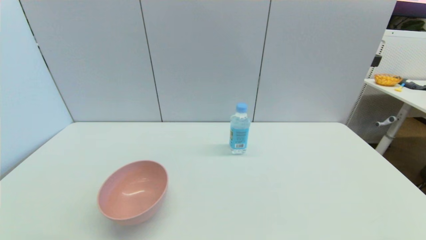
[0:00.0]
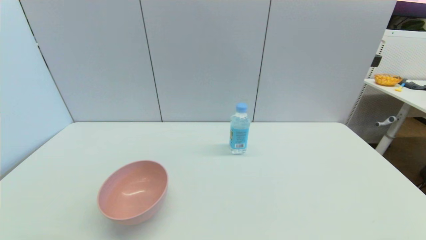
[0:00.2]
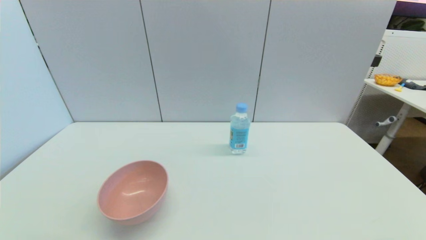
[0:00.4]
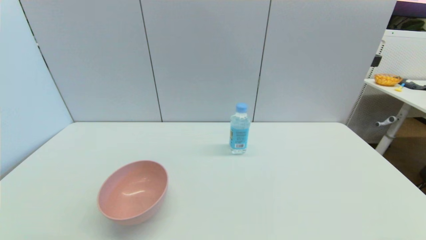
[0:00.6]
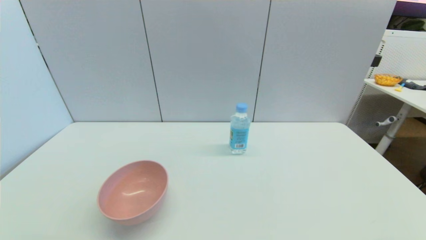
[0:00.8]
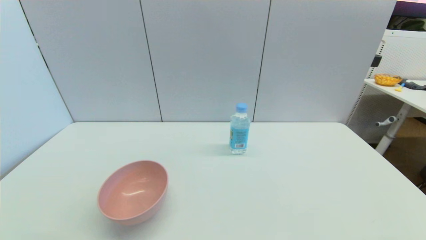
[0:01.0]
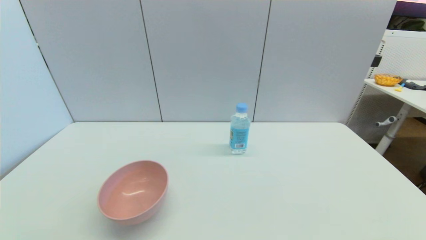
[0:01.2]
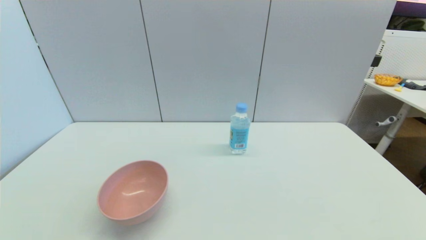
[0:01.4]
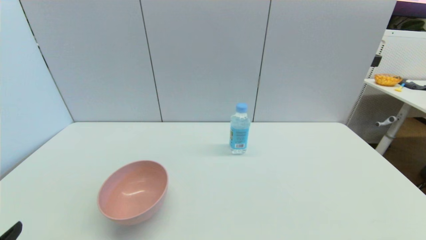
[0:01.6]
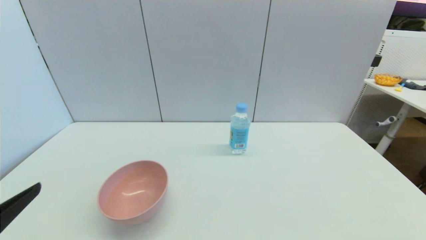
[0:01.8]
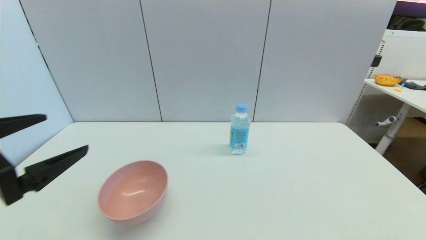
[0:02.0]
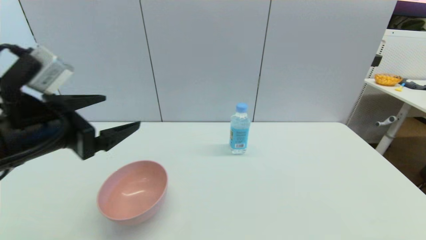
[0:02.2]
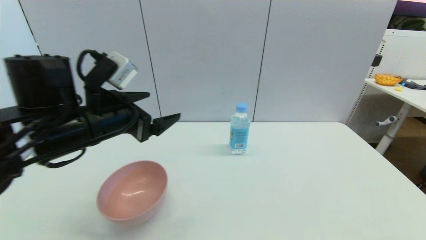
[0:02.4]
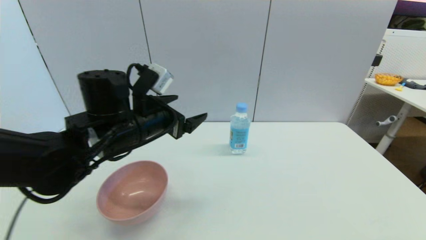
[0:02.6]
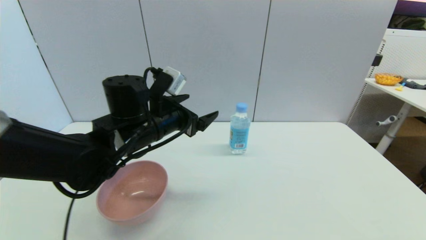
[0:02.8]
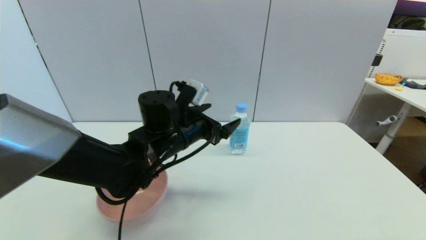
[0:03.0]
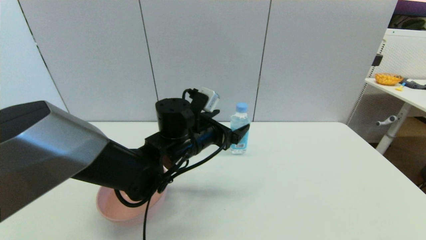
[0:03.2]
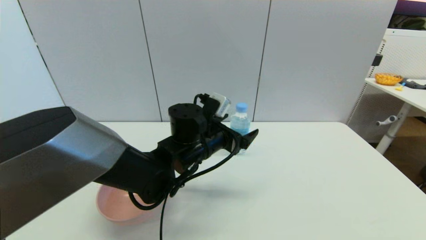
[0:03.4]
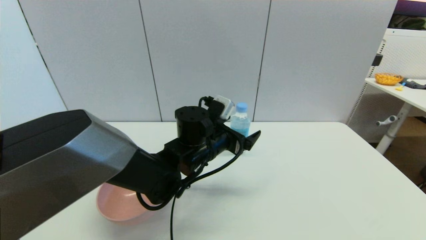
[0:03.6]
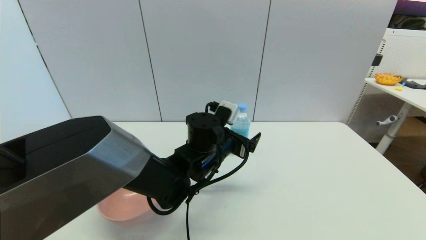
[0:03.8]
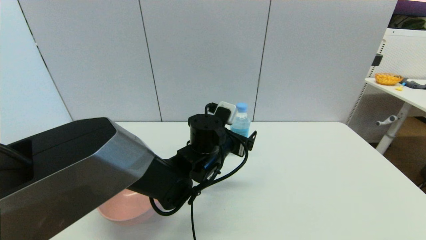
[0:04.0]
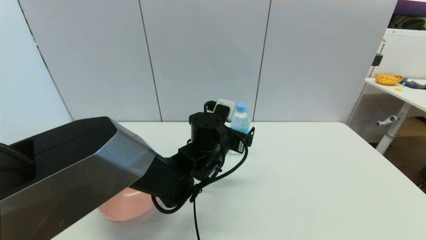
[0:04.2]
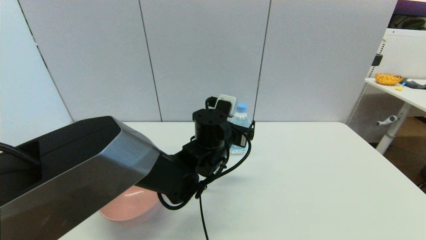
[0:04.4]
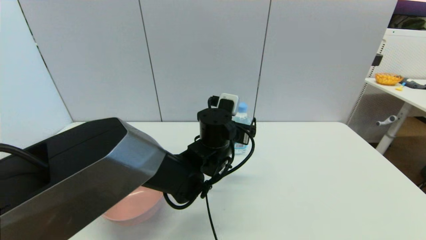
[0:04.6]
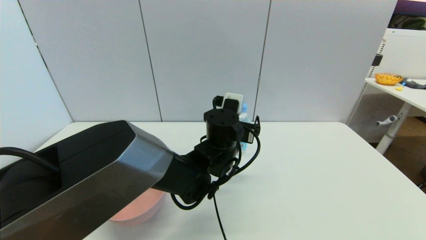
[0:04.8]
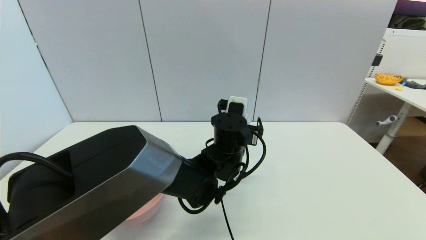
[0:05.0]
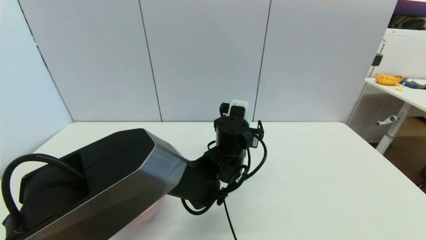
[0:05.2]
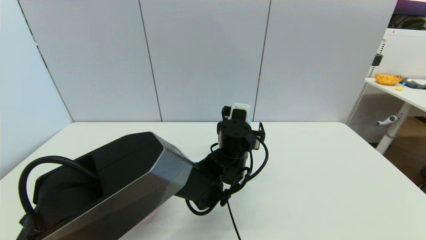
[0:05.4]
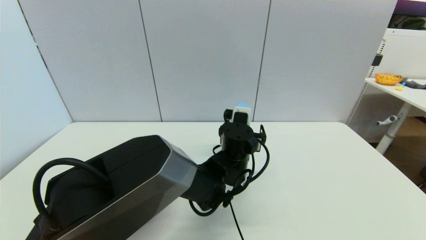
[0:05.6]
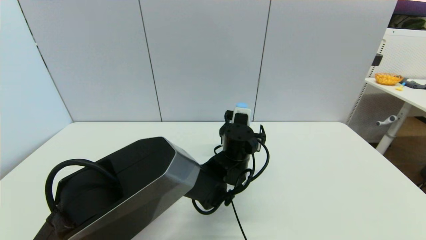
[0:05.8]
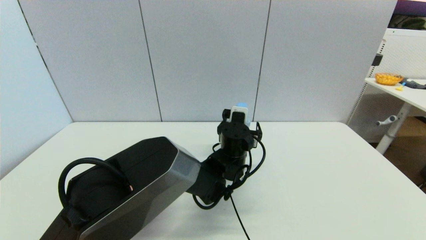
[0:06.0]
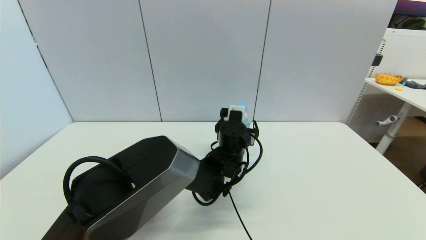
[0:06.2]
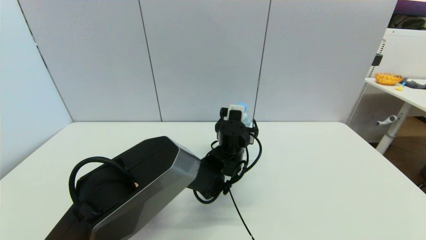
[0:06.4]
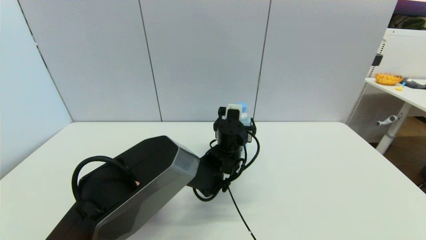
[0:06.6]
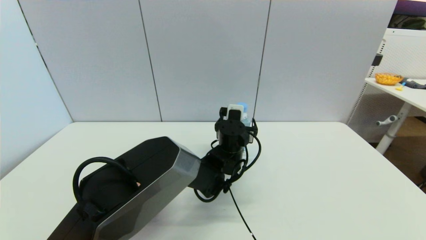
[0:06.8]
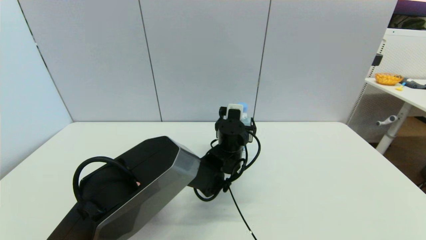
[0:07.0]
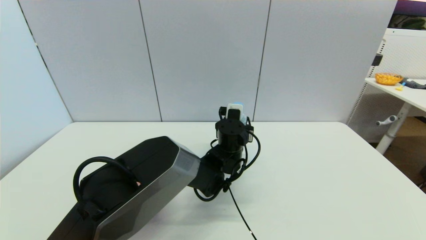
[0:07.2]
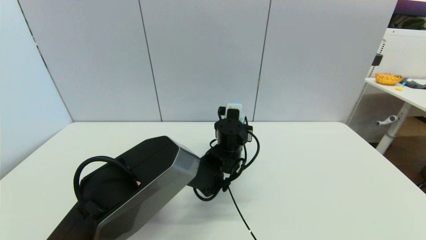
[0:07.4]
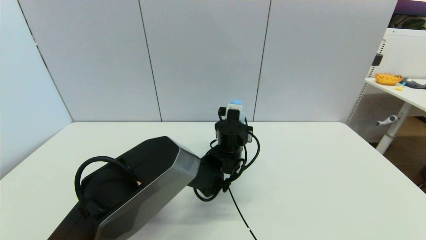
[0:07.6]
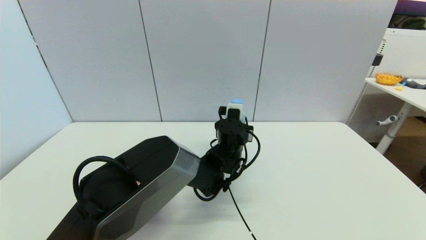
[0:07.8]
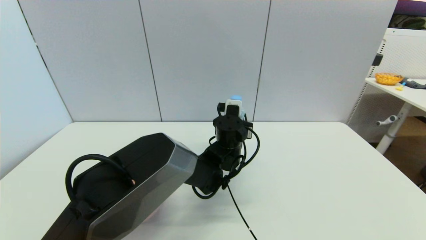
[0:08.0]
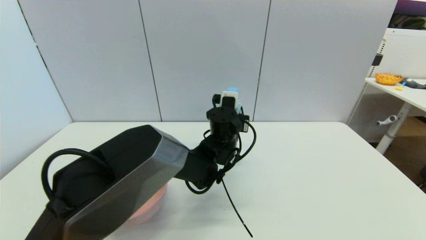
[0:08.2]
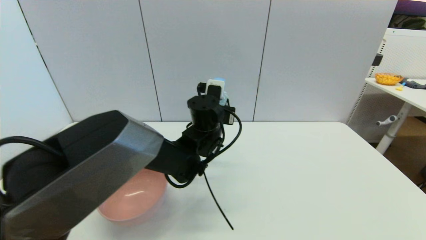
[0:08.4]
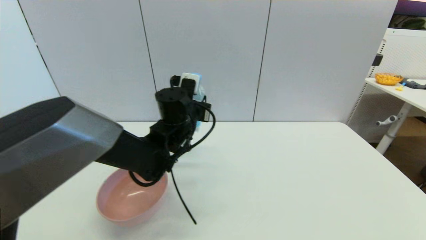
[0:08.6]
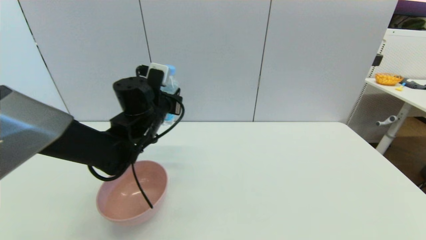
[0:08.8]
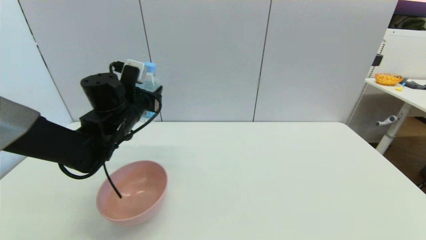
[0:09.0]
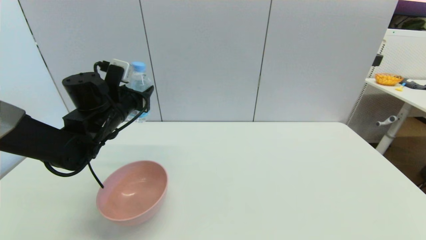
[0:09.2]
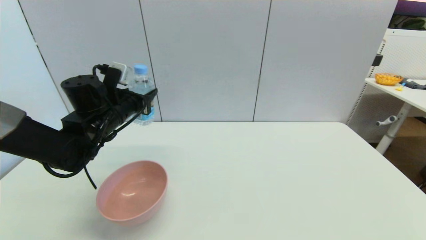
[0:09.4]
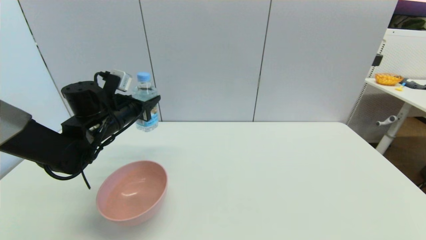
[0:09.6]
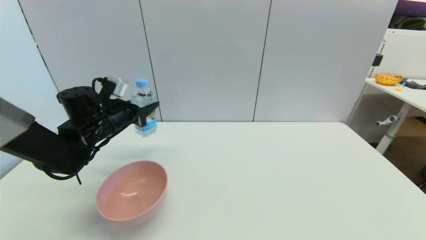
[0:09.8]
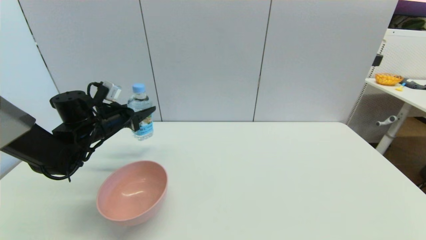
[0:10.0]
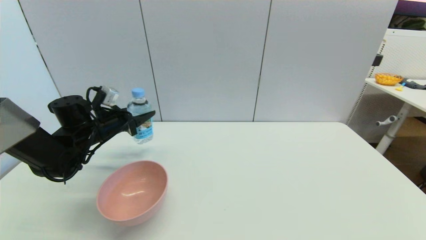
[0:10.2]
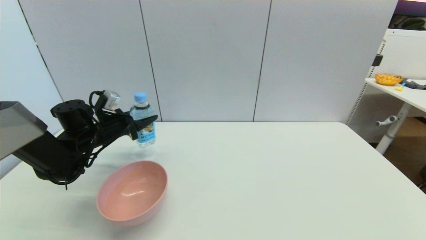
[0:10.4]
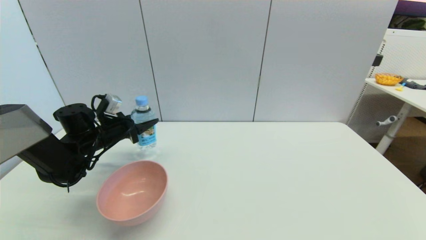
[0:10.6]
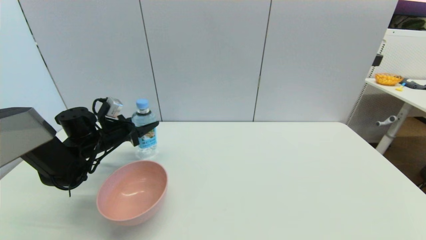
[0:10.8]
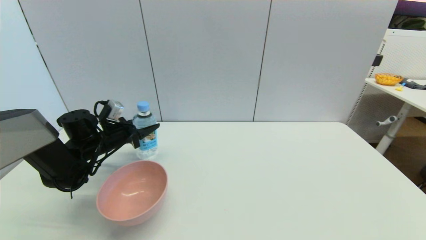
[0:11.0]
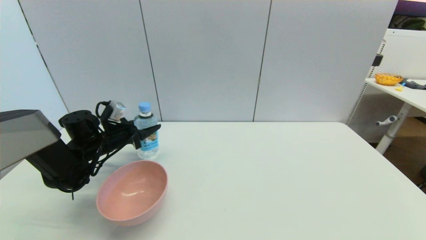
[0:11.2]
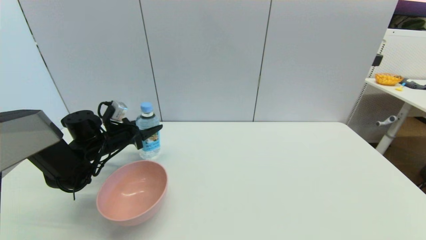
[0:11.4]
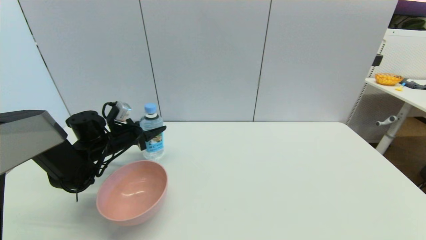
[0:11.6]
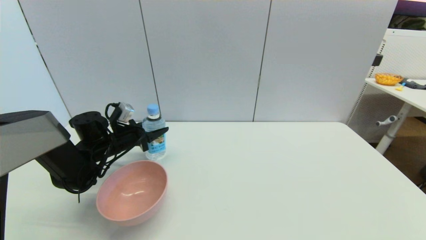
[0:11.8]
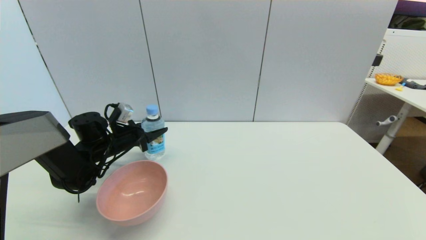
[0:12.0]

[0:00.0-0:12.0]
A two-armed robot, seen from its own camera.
Step, 0:01.4 to 0:07.6: Grasp the soda water with left gripper.
0:01.6 to 0:03.0: The left gripper shifts some 40 cm forward and to the right.
0:03.0 to 0:04.4: The left gripper travels to the right by approximately 10 cm.
0:04.4 to 0:06.0: The left gripper goes about 5 cm to the right.
0:06.0 to 0:07.6: The left gripper closes up.
0:07.6 to 0:09.0: The left gripper goes approximately 25 cm to the left and upward.
0:09.0 to 0:10.4: The left gripper heads to the left and downward, covering about 10 cm.
0:10.4 to 0:12.0: The grippers stay close to where they were, moving slightly.

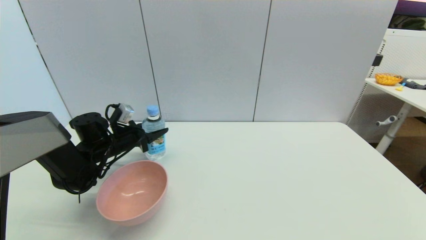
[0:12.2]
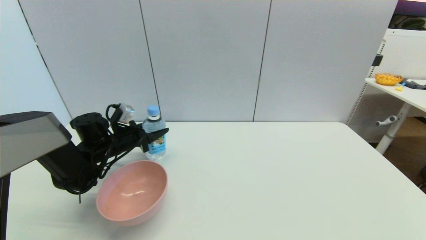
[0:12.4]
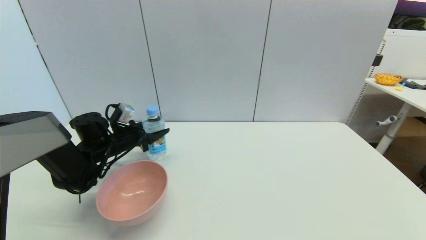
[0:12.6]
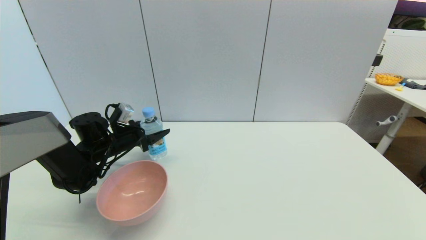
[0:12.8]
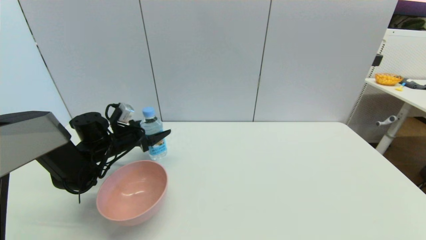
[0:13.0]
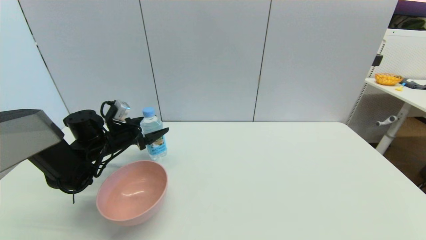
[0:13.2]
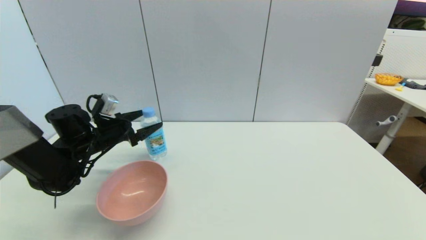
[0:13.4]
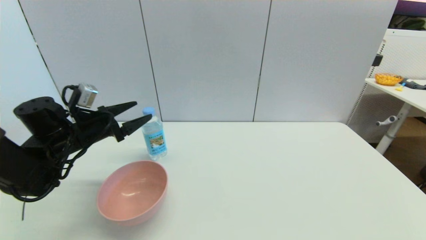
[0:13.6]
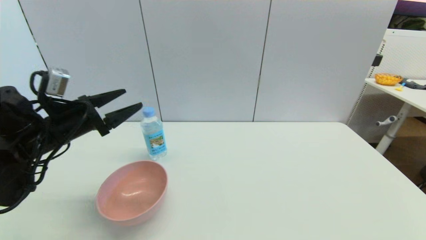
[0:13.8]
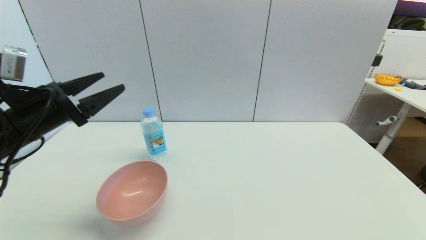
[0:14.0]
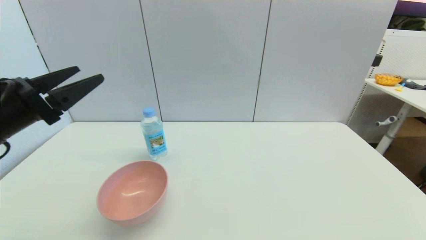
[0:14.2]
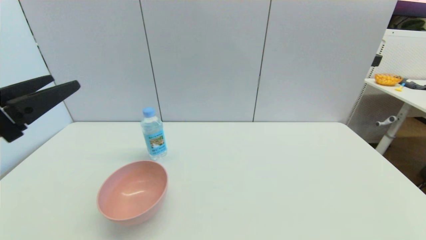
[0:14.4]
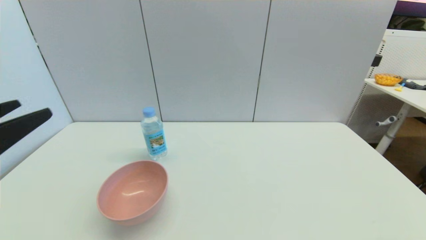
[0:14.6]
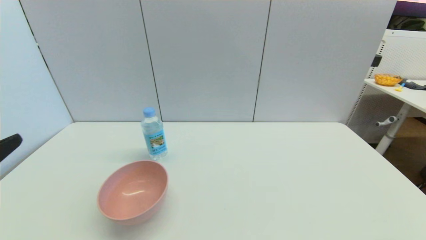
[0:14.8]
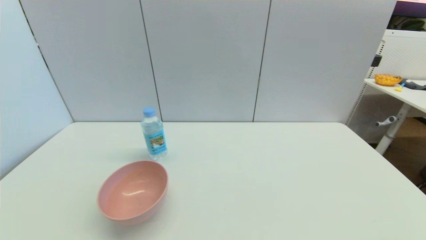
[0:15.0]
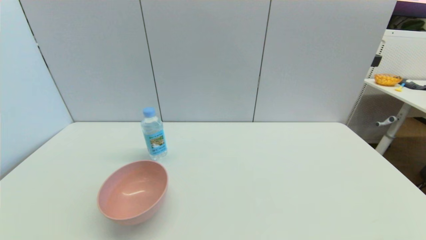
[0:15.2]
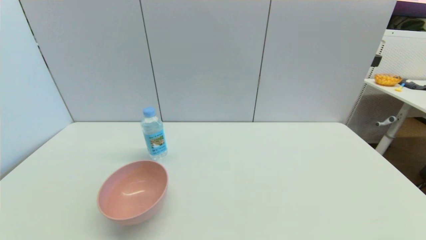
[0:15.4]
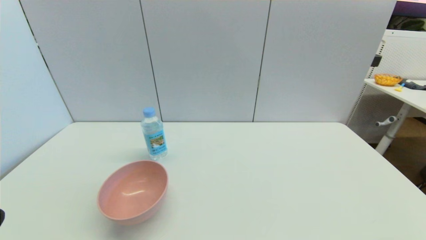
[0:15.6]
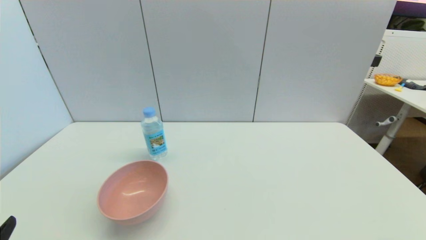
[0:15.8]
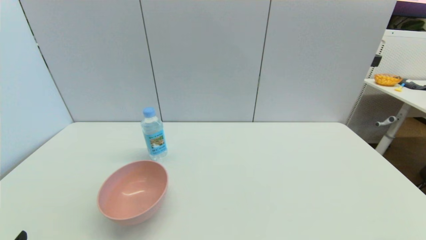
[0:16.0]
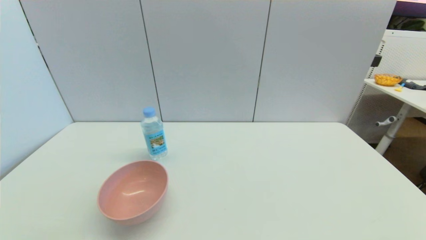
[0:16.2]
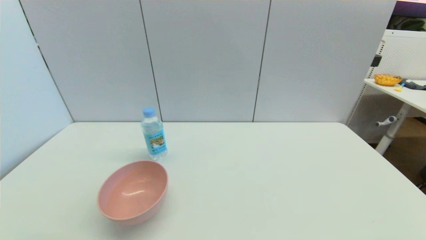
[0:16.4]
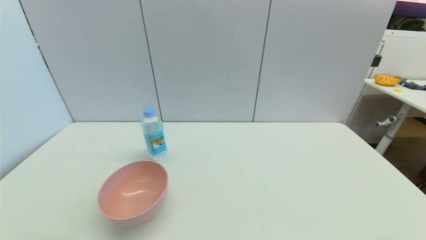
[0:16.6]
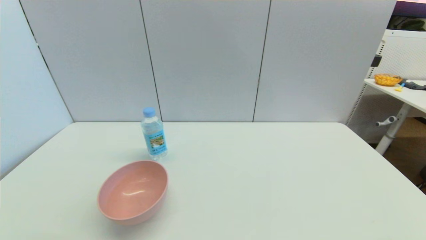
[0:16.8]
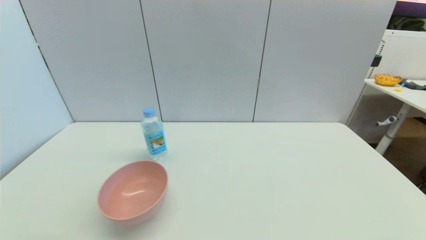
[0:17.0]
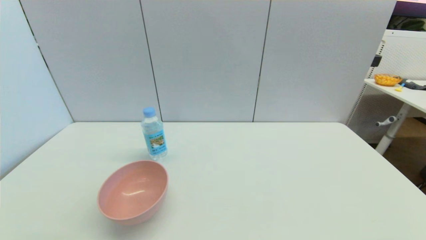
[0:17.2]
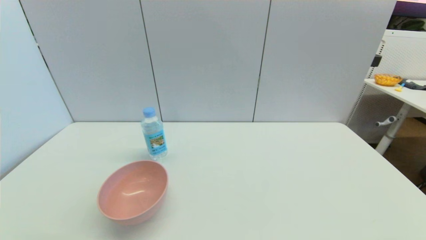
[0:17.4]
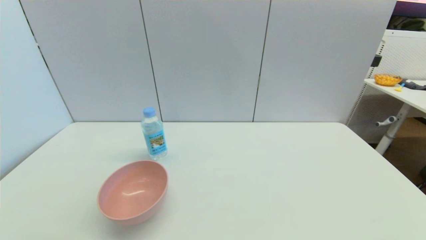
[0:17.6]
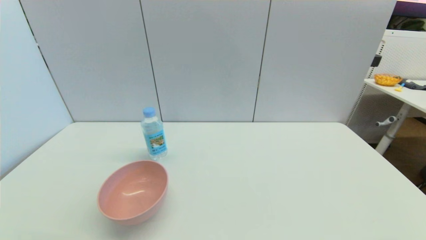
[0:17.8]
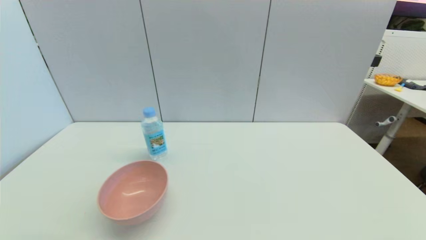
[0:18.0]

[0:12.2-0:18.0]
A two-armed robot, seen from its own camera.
0:12.2 to 0:13.6: The left gripper travels upward and backward by approximately 10 cm, and opens its fingers.
0:13.6 to 0:15.0: The left gripper travels backward by some 30 cm.
0:16.6 to 0:18.0: The two grippers keep their place.
